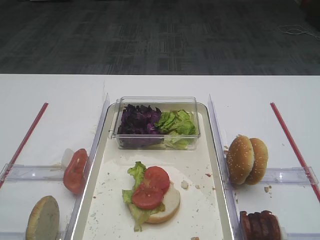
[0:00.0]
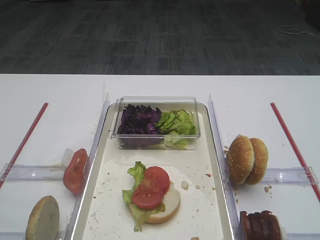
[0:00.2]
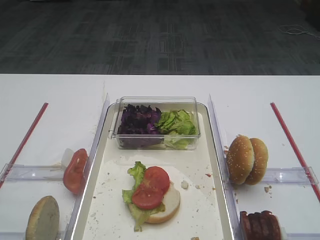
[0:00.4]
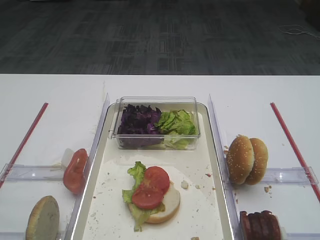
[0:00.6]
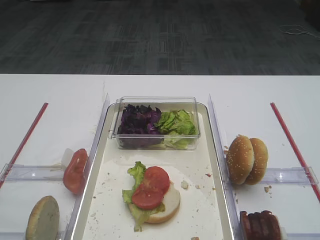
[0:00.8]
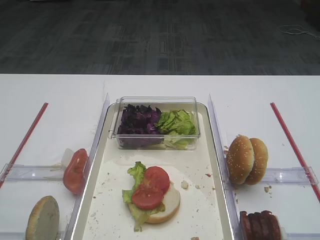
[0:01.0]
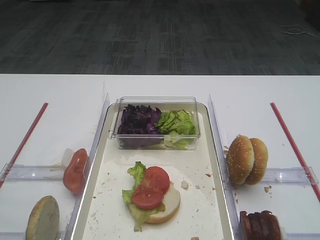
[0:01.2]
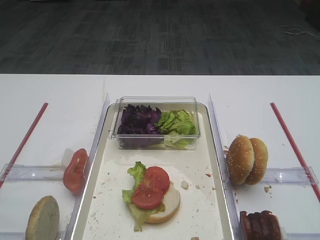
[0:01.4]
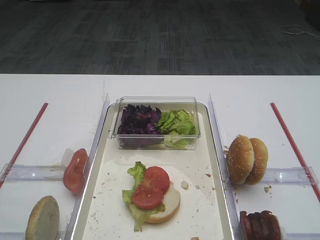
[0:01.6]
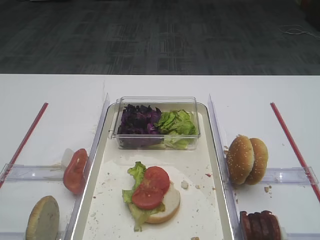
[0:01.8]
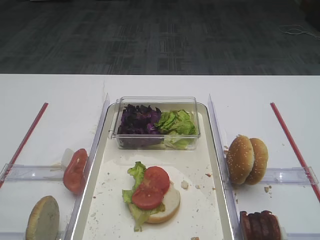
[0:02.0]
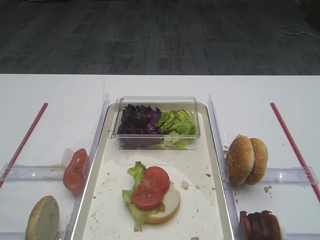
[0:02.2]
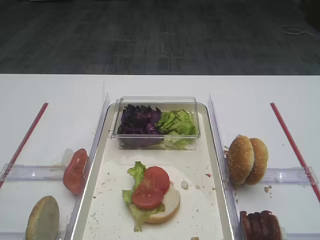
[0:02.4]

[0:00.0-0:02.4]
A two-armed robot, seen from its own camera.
0:00.0 to 0:02.4: The two grippers keep their place.
